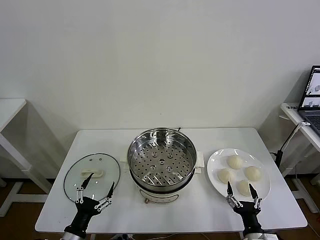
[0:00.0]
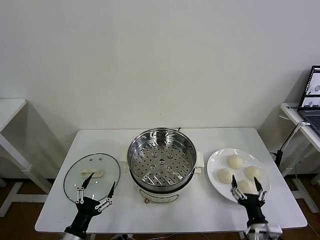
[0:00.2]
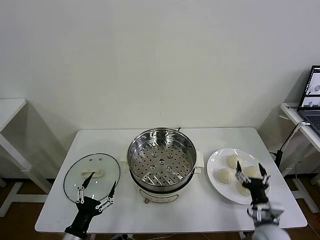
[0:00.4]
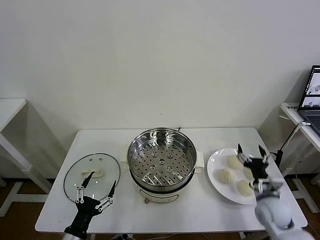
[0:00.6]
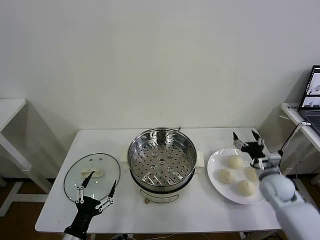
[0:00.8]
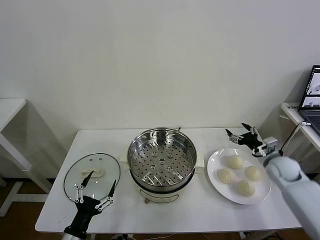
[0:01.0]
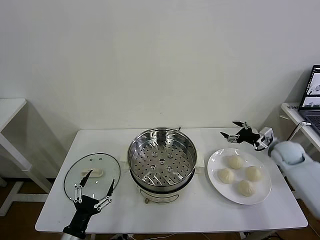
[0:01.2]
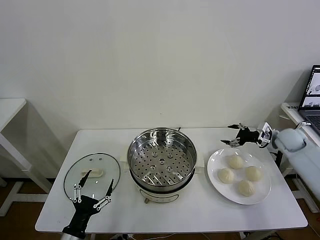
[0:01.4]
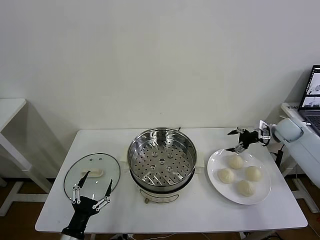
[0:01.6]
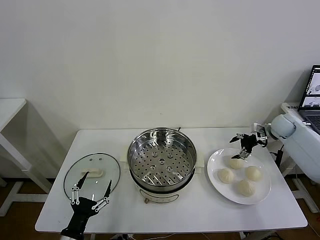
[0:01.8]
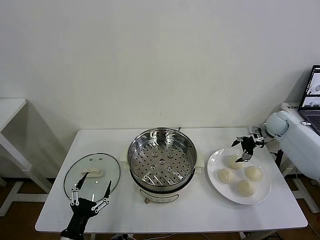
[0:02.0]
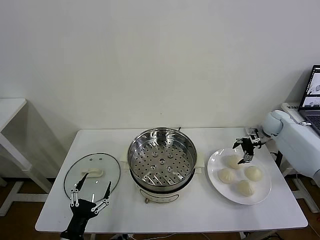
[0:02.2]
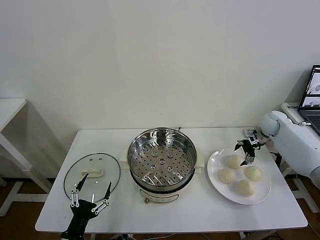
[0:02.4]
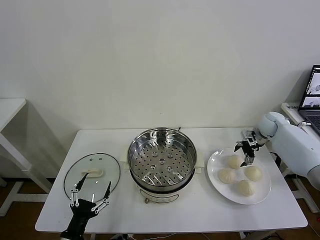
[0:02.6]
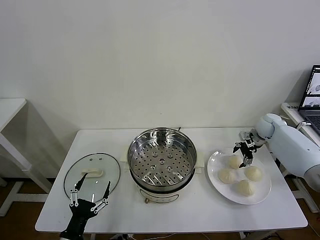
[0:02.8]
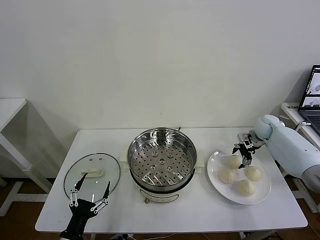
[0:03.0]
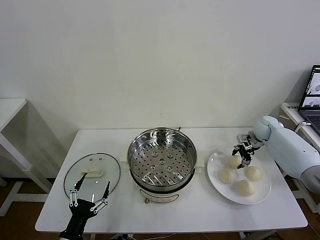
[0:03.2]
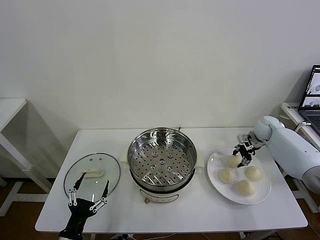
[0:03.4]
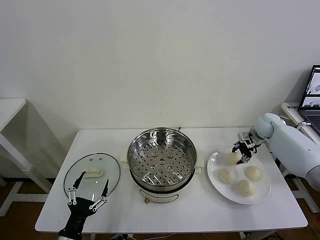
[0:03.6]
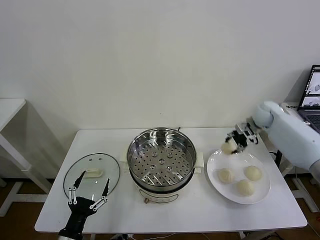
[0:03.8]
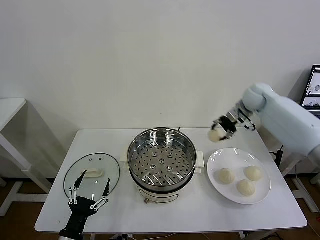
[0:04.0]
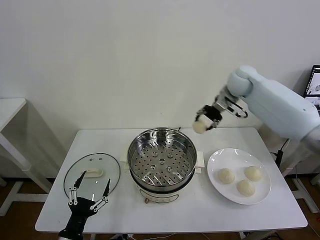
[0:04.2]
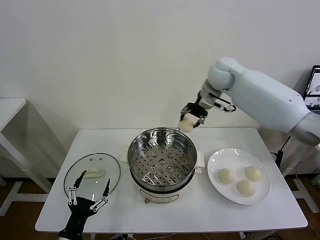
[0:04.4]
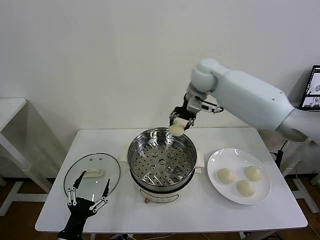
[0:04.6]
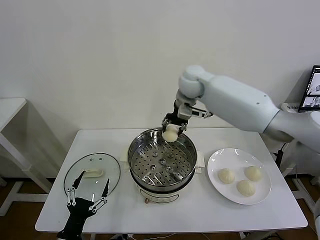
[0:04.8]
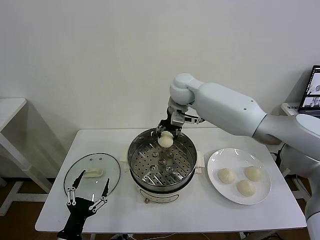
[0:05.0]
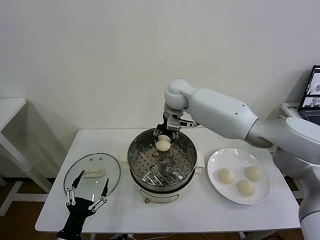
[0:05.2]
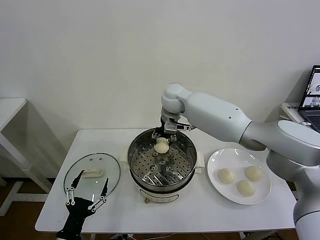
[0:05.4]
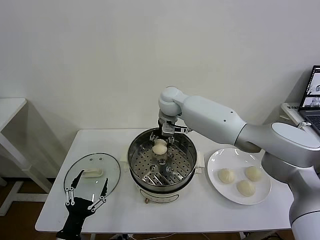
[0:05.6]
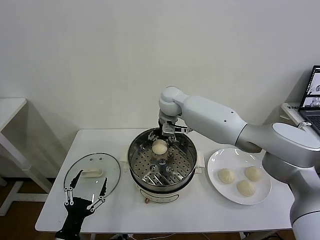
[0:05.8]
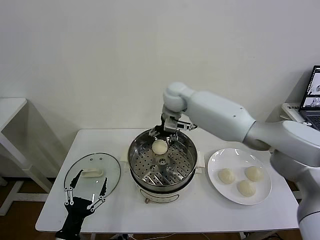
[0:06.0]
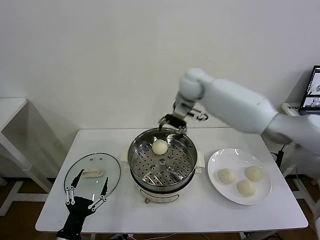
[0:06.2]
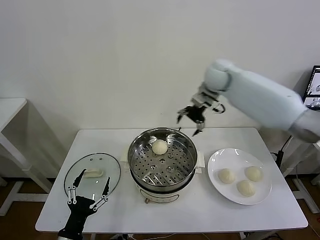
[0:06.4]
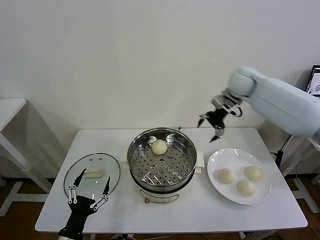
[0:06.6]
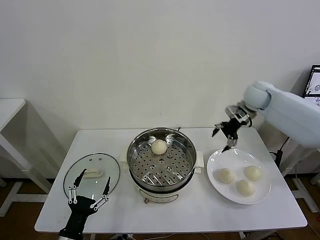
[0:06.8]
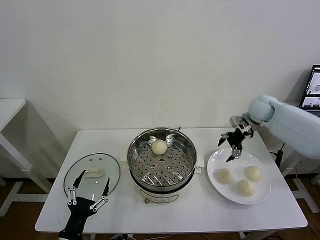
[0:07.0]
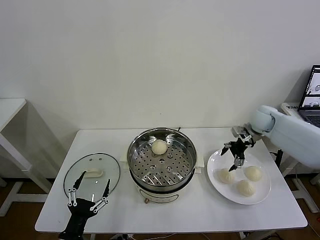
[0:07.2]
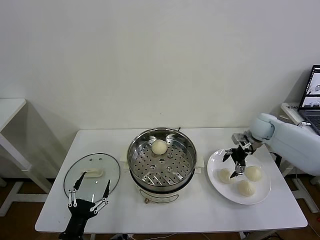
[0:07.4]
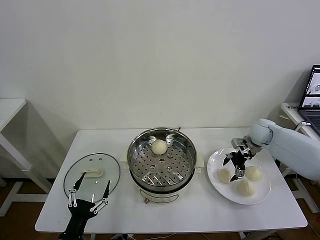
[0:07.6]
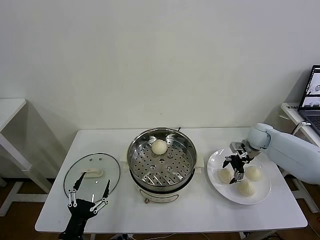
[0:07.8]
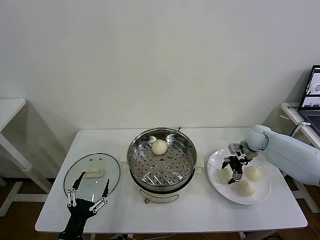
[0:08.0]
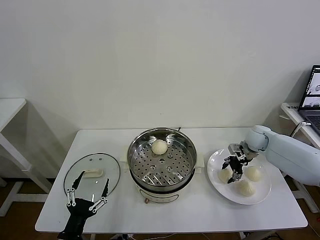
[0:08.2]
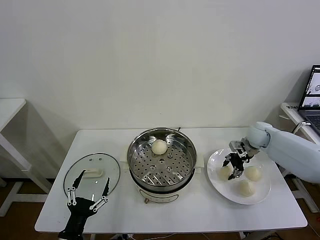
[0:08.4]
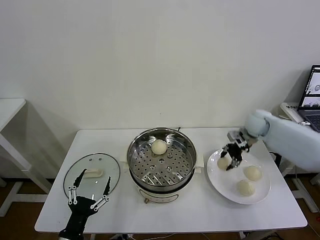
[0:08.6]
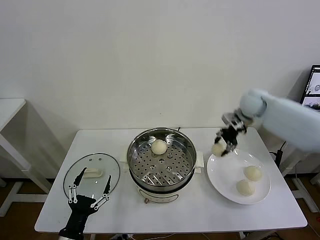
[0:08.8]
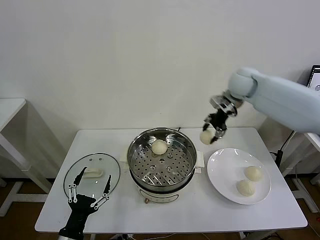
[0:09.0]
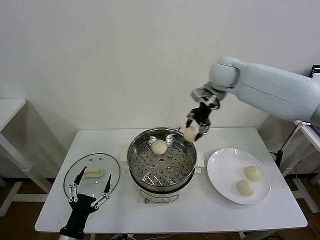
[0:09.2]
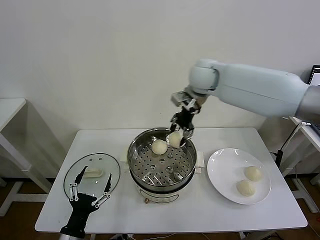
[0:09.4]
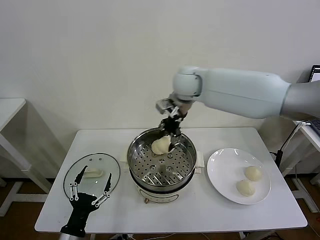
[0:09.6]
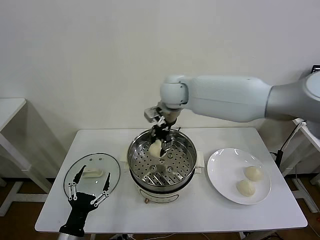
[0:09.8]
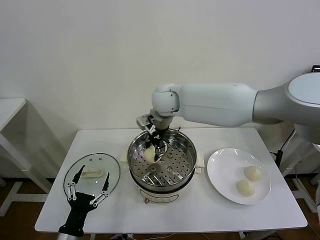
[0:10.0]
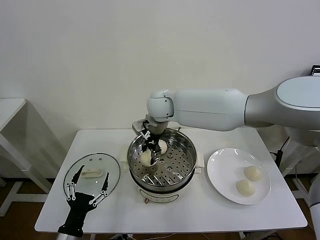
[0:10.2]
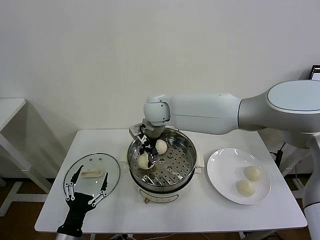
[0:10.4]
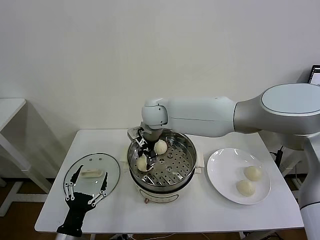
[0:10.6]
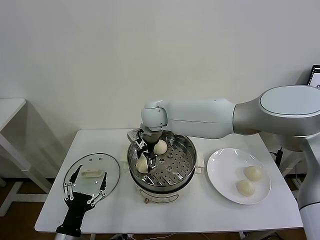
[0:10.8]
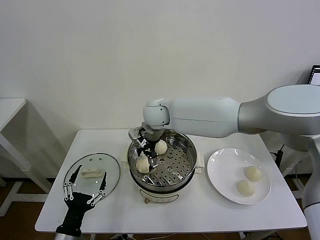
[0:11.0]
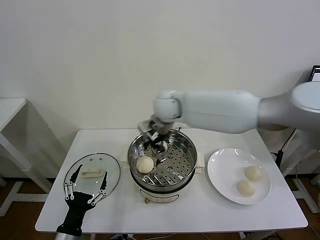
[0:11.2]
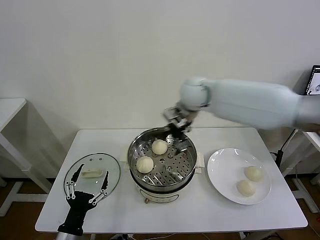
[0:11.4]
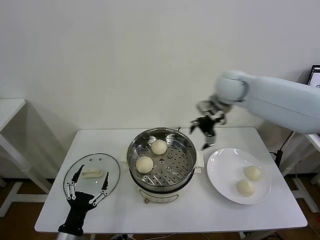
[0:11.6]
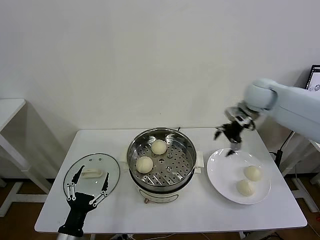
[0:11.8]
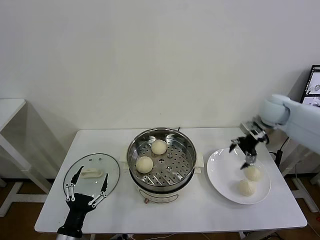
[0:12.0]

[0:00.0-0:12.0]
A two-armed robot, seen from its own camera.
Task of the whole recording: take steamed baozi put them in steamer then cover it.
Step, 0:00.0 to 0:03.0: Grasp the baozi in the plate with right gripper.
Step, 0:03.2 to 0:05.8: Place the baozi on the steamer with right gripper.
Step, 0:06.0 to 0:08.0: Grasp the baozi in the plate with right gripper.
Step, 0:08.2 to 0:10.8: Place the baozi on the steamer with right gripper.
0:01.6 to 0:03.0: The right gripper shifts by about 5 cm.
0:03.0 to 0:04.4: The right gripper heads to the left and upward, covering about 35 cm, and closes its fingers.
0:04.4 to 0:06.0: The right gripper shifts roughly 10 cm to the left and downward, and opens its fingers.
0:06.0 to 0:07.6: The right gripper travels to the right and downward by some 35 cm.
0:07.6 to 0:09.0: The right gripper moves upward and to the left, roughly 25 cm, and closes its fingers.
0:09.0 to 0:10.4: The right gripper is displaced to the left by approximately 25 cm.
0:10.4 to 0:12.0: The right gripper moves to the right, roughly 40 cm, and opens up.

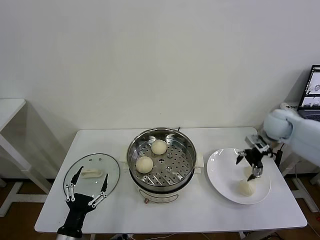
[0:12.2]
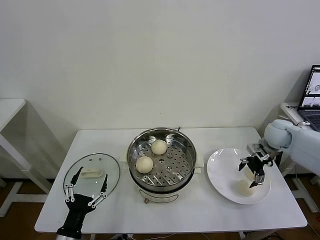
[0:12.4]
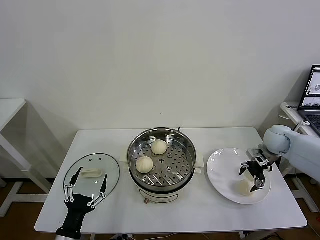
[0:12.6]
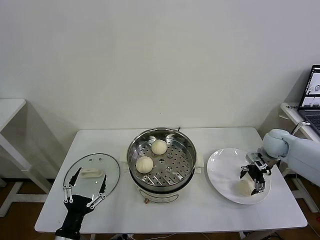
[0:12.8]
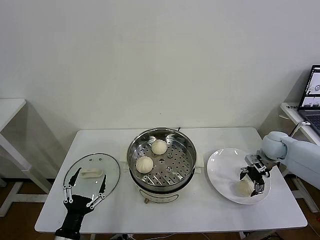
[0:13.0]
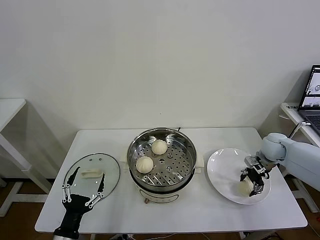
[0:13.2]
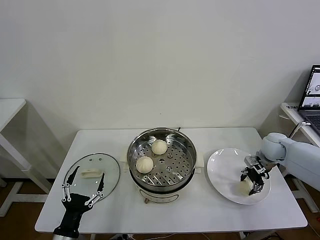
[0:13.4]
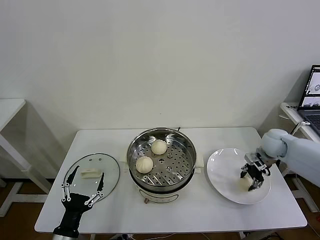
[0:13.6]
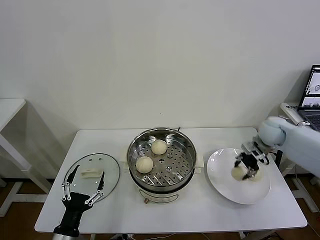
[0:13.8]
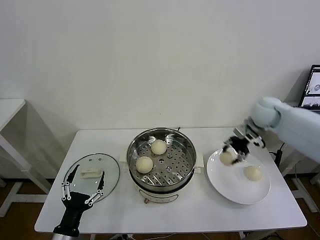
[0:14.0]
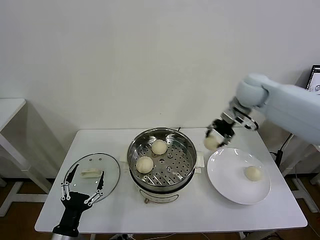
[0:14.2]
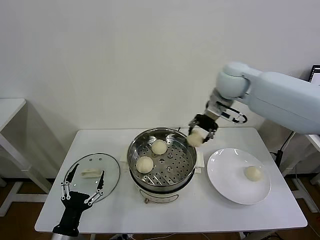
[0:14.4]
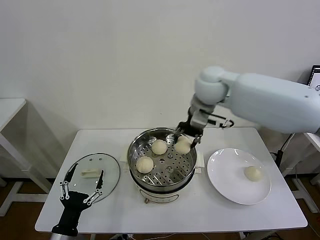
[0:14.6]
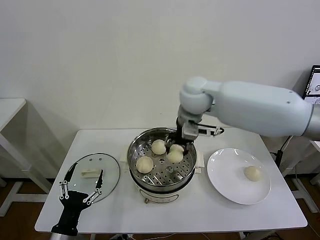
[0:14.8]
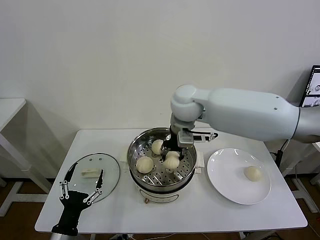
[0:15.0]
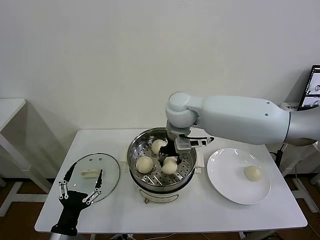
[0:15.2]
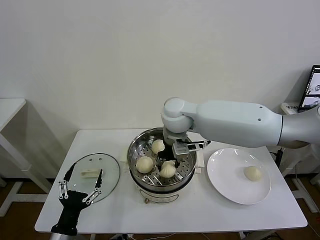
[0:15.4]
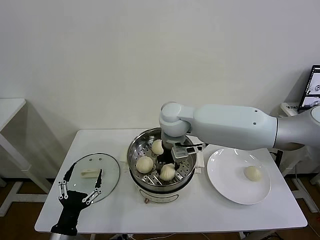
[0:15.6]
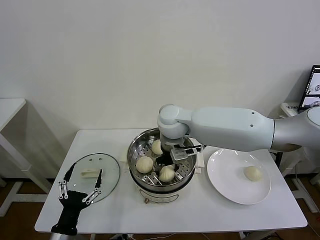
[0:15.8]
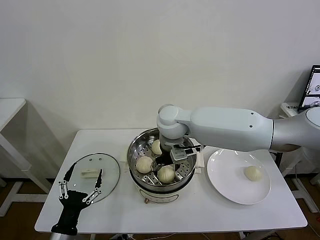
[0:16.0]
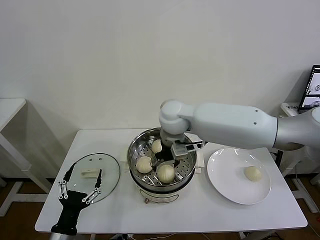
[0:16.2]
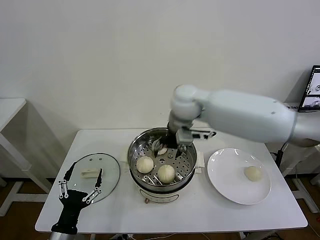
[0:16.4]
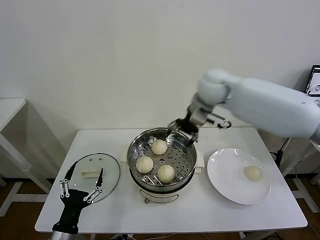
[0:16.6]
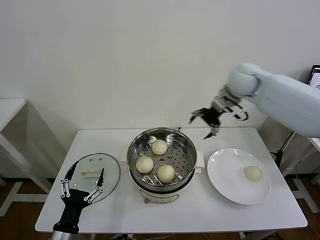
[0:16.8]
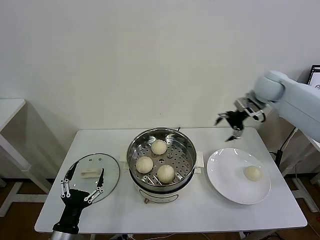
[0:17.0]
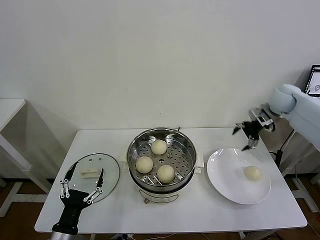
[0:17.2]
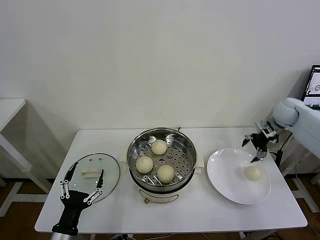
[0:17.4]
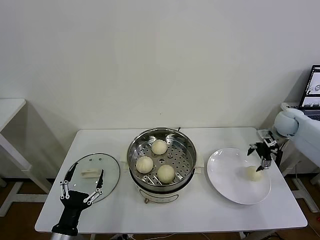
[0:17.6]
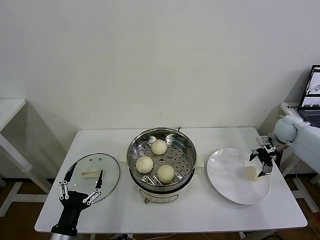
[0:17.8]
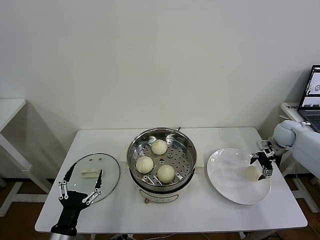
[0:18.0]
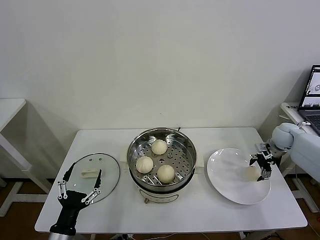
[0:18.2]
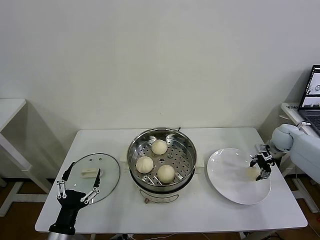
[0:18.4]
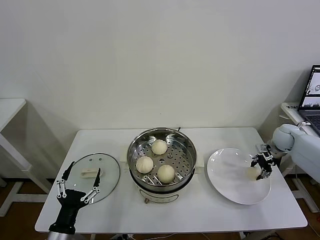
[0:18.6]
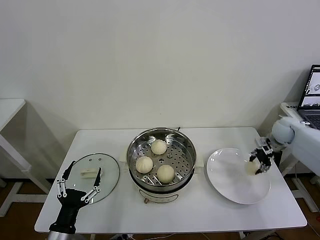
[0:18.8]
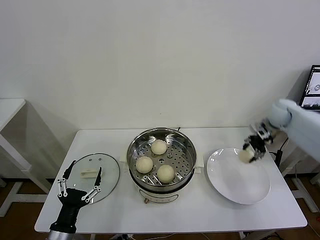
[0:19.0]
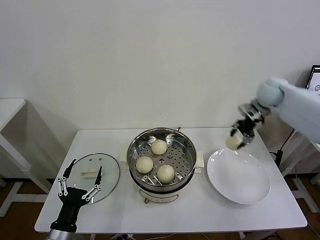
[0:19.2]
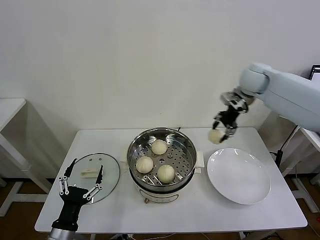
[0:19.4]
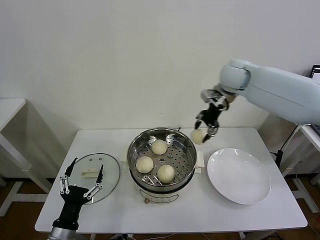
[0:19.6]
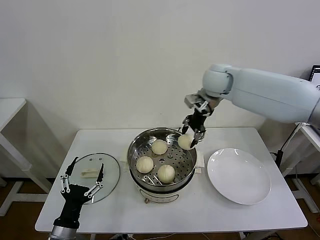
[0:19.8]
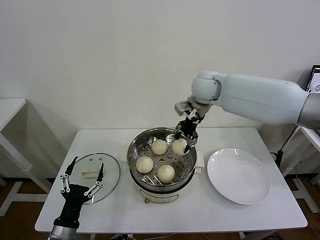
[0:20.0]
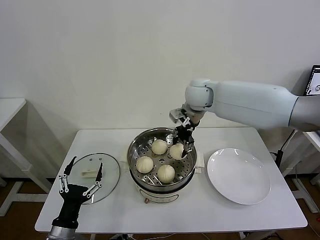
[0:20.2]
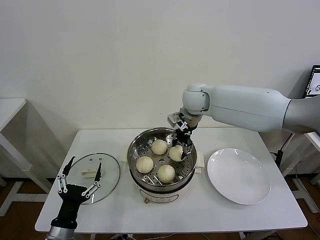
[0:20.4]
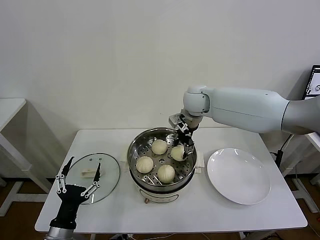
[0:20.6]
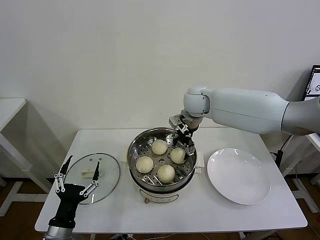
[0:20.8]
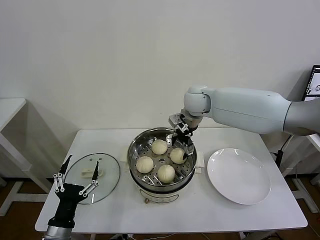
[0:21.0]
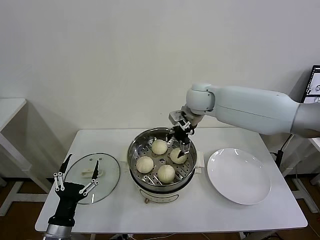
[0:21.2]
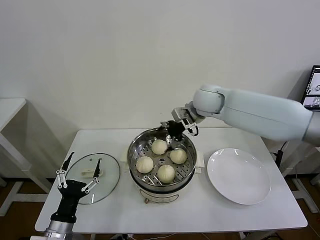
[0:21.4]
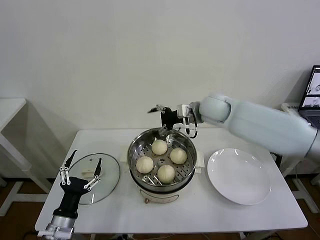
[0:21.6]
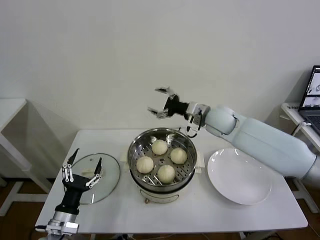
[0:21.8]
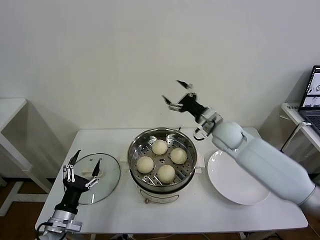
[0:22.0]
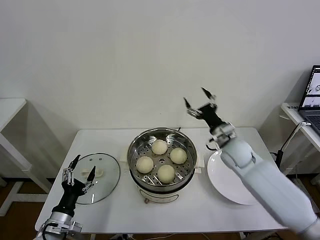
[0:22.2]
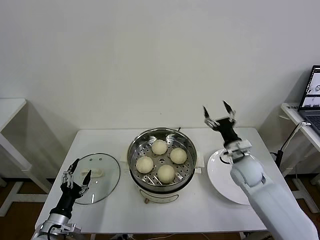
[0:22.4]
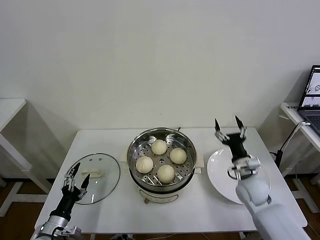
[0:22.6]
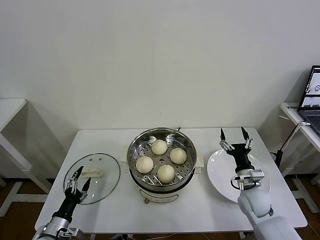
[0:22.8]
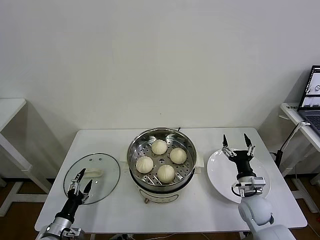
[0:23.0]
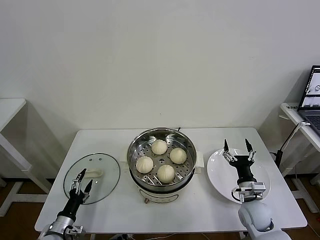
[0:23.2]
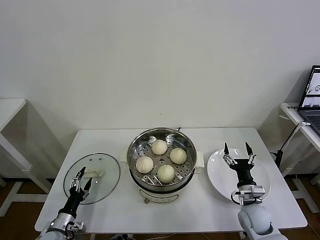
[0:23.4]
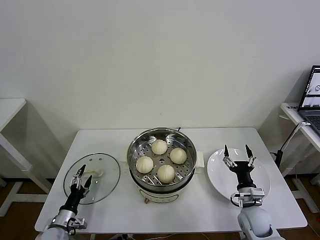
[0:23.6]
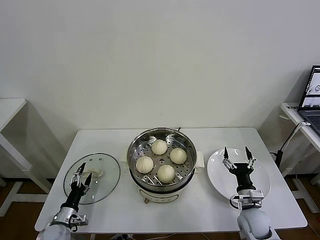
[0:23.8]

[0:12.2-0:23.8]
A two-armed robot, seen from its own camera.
Task of the whole recording: take steamed baozi put them in steamer then cover it.
Step, 0:13.4 to 0:16.0: Place the baozi on the steamer with right gripper.
Step, 0:16.2 to 0:18.4: Grasp the baozi in the plate with right gripper.
Step, 0:18.6 to 0:20.8: Place the baozi on the steamer with right gripper.
0:12.2 to 0:13.6: The right gripper closes its fingers.
0:13.6 to 0:15.0: The right gripper goes some 40 cm to the left and upward.
0:15.0 to 0:16.6: The right gripper is displaced to the right and forward by about 10 cm, and opens.
0:16.6 to 0:18.0: The right gripper heads to the right and downward, covering some 40 cm.
0:18.0 to 0:19.4: The right gripper is displaced upward and to the left by approximately 30 cm, and closes.
0:19.4 to 0:21.0: The right gripper shifts approximately 15 cm to the left, and opens its fingers.
0:21.0 to 0:22.4: The right gripper goes about 30 cm downward, to the right and backward. The left gripper travels to the left by roughly 5 cm.
0:22.4 to 0:23.8: The left gripper moves downward, about 10 cm; the right gripper heads backward and downward, covering some 15 cm.
